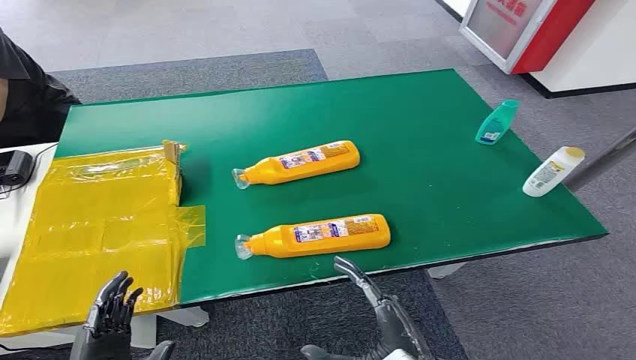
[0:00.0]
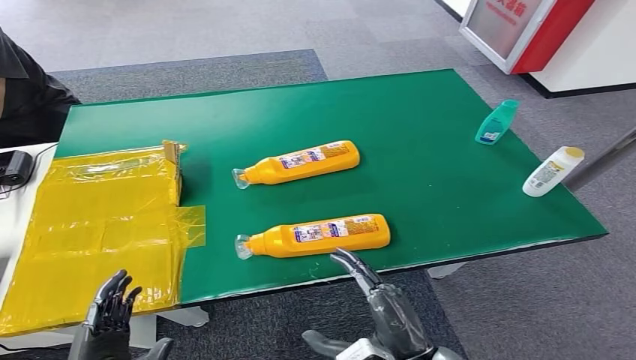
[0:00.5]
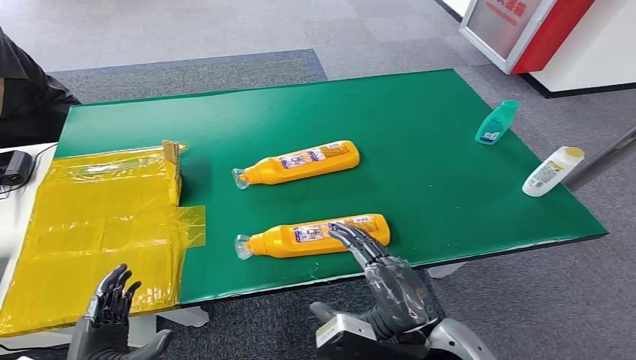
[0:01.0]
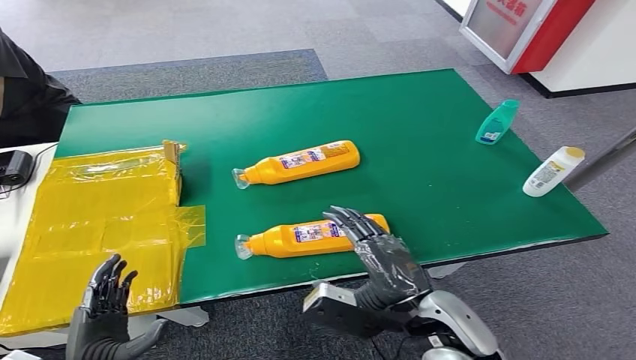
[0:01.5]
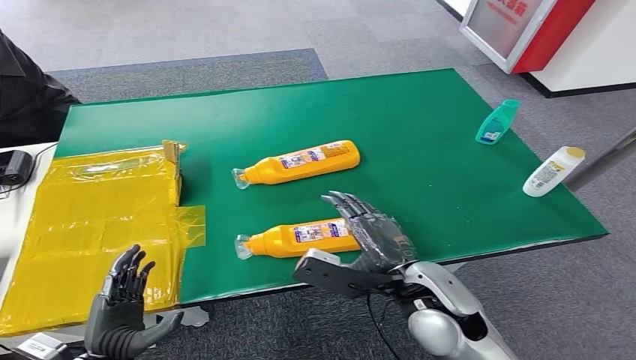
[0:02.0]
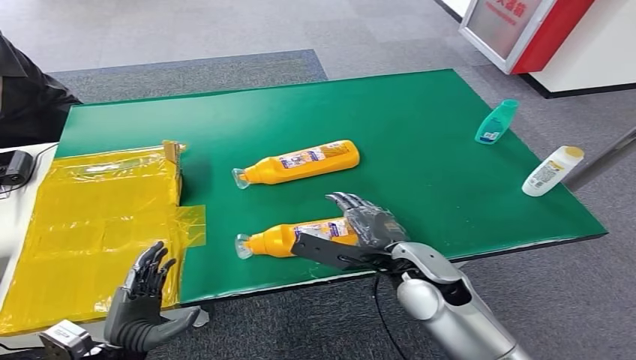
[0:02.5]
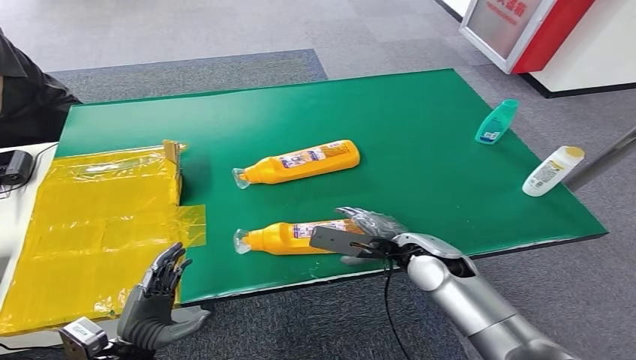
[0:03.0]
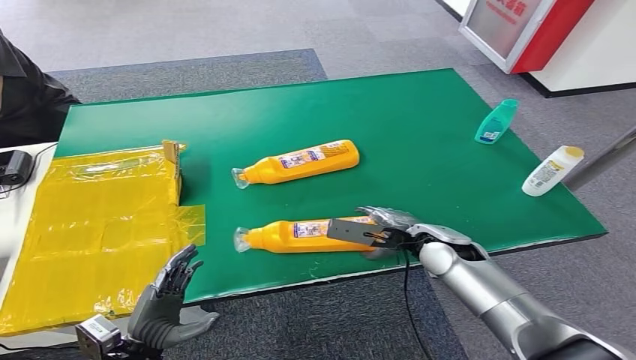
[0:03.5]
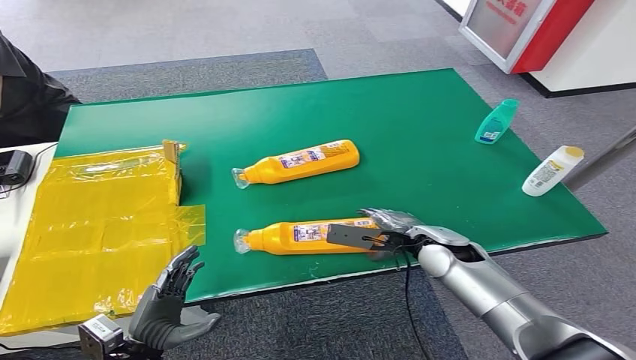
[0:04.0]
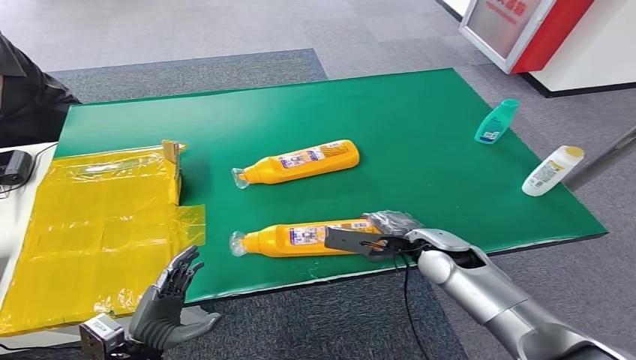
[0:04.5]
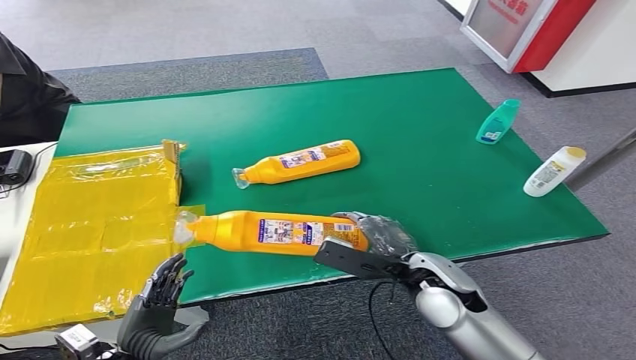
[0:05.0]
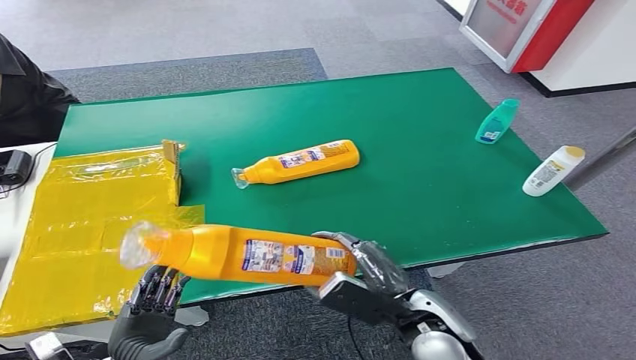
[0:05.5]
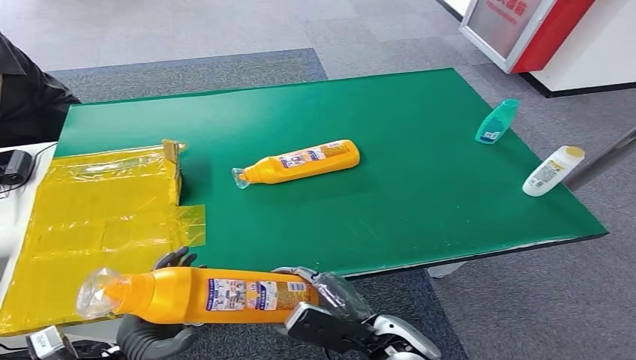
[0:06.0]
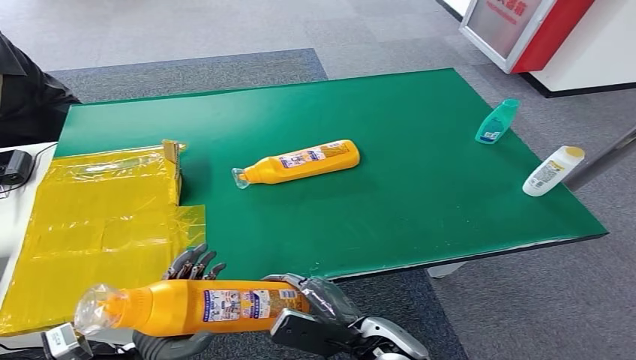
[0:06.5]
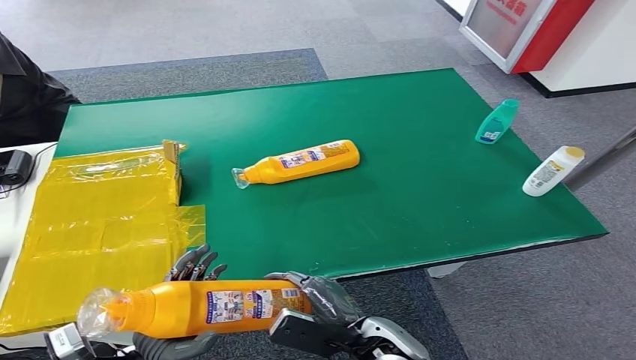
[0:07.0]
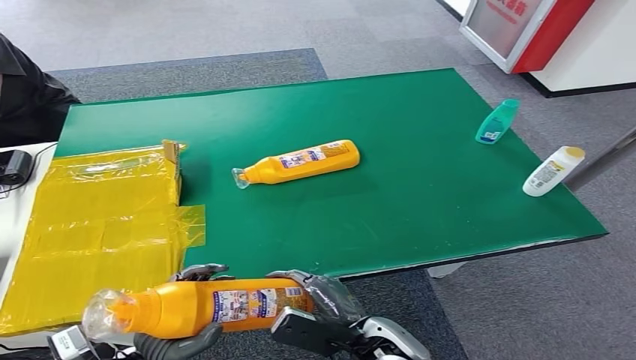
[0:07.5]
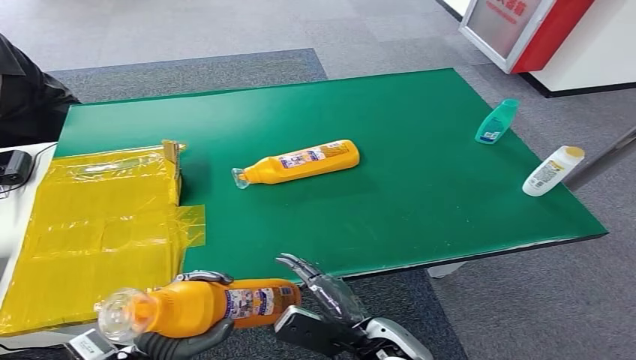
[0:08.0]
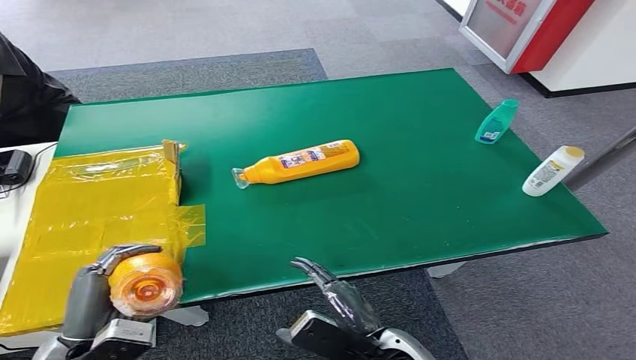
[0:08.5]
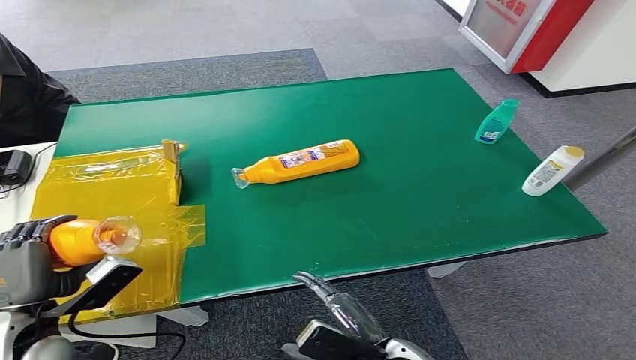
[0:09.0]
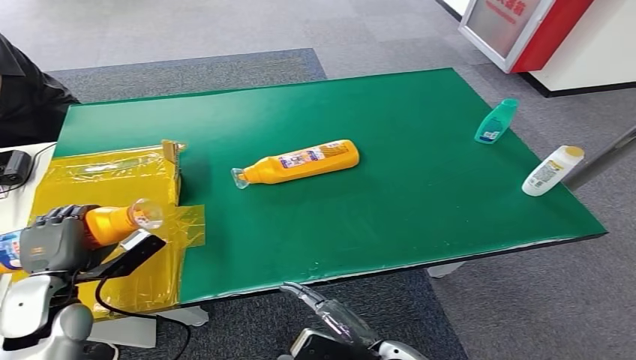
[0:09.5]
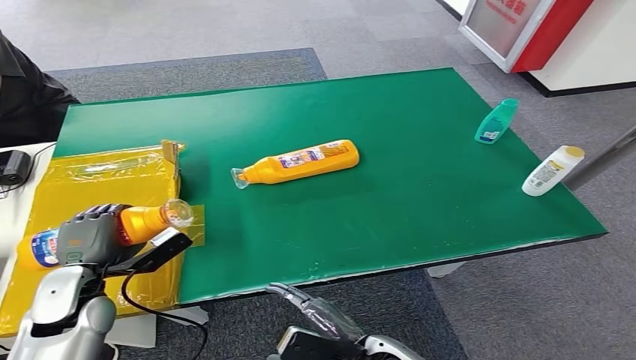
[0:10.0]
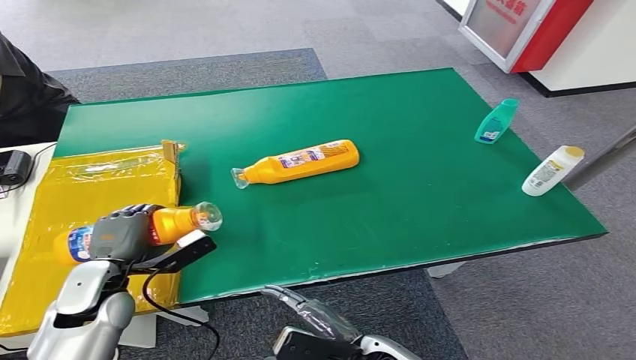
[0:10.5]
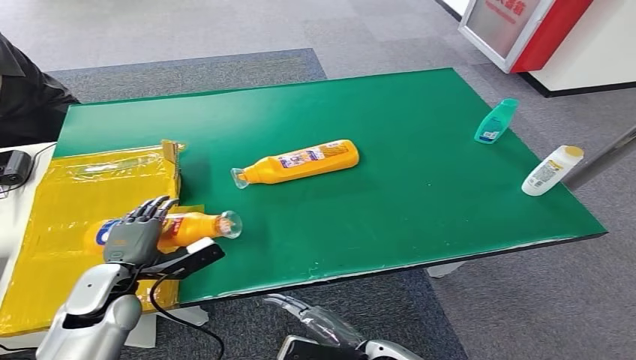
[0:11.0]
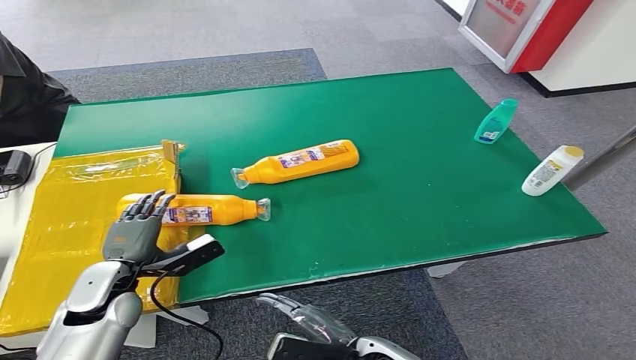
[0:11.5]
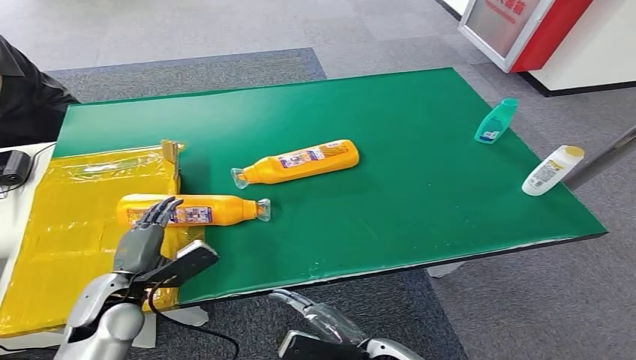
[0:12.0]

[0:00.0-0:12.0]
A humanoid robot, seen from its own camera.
Step, 0:00.0 to 0:05.5: Pick up the bottle from the table.
Step, 0:06.0 to 0:12.0: Turn the bottle to the front side.
0:02.0 to 0:04.0: The right hand shifts about 15 cm forward, downward and to the right.
0:04.0 to 0:06.0: The right hand travels backward and to the left by about 20 cm.
0:06.0 to 0:08.0: The hands make only small movements.
0:08.0 to 0:10.0: The left hand travels forward and to the left by approximately 15 cm.
